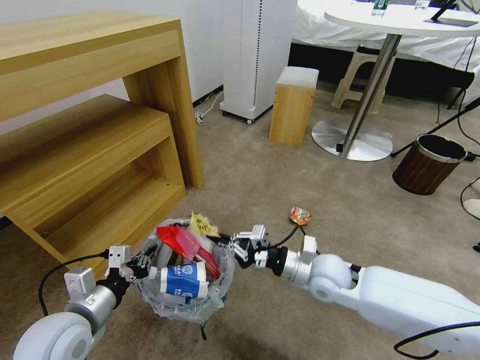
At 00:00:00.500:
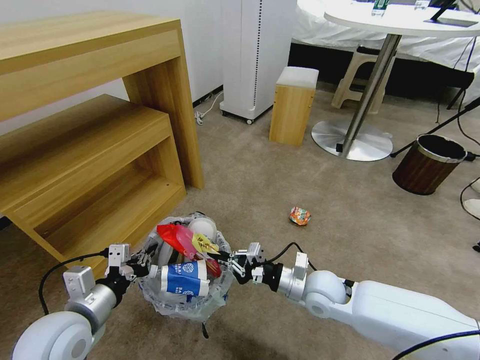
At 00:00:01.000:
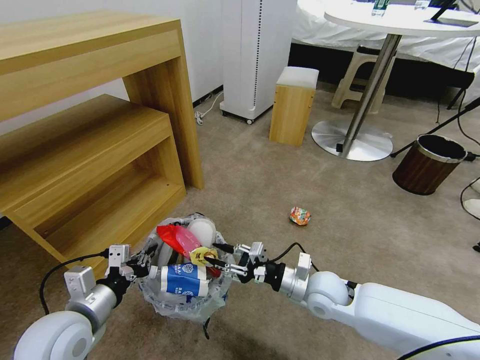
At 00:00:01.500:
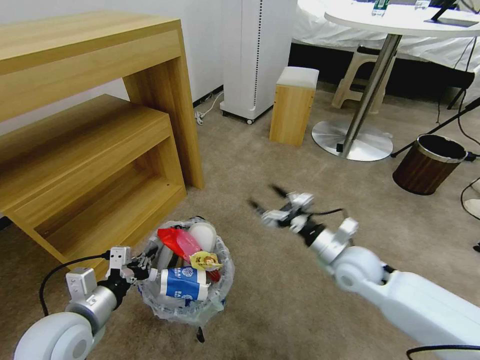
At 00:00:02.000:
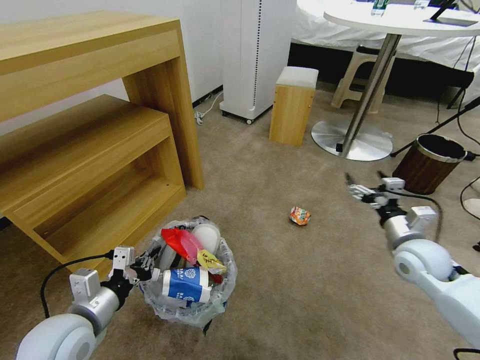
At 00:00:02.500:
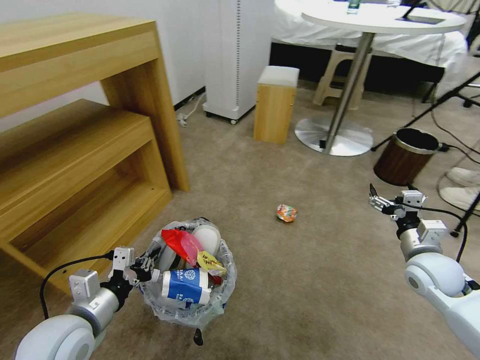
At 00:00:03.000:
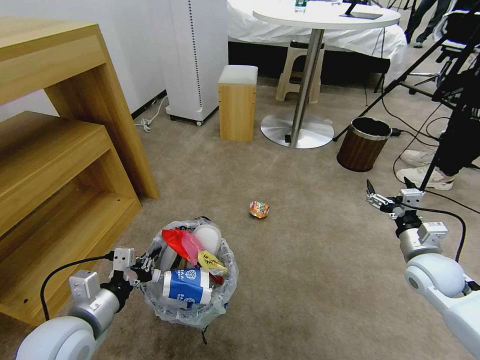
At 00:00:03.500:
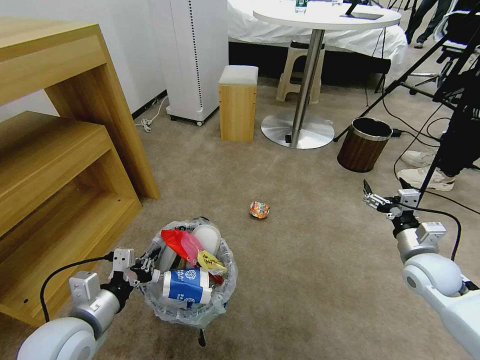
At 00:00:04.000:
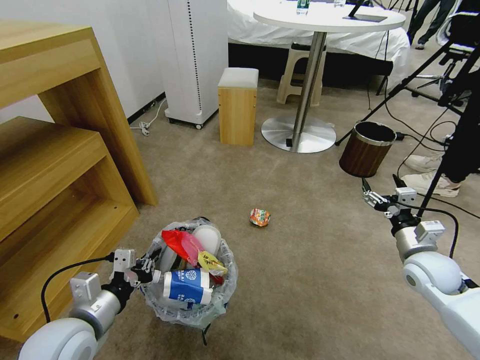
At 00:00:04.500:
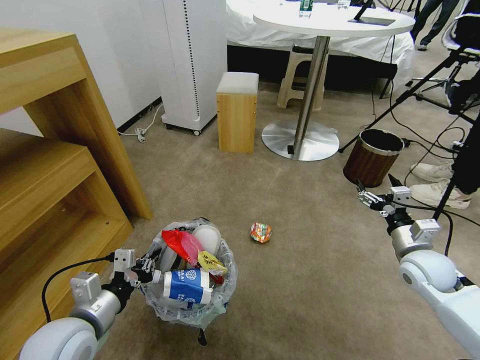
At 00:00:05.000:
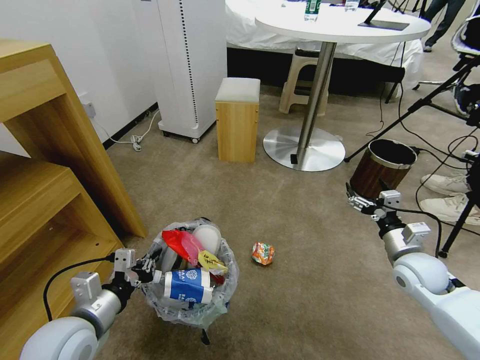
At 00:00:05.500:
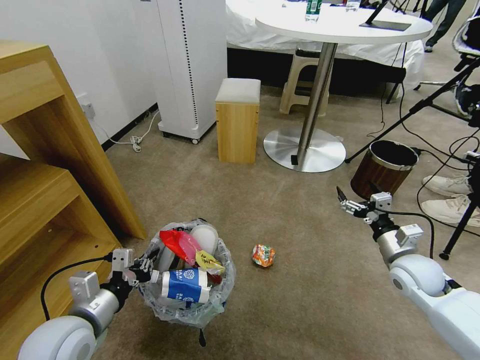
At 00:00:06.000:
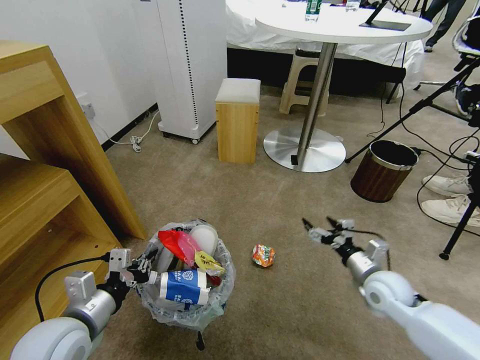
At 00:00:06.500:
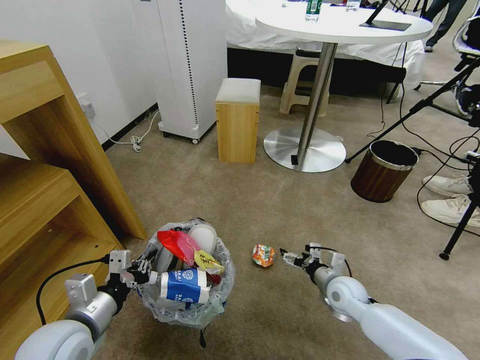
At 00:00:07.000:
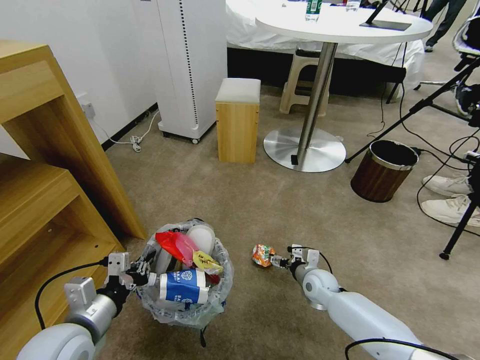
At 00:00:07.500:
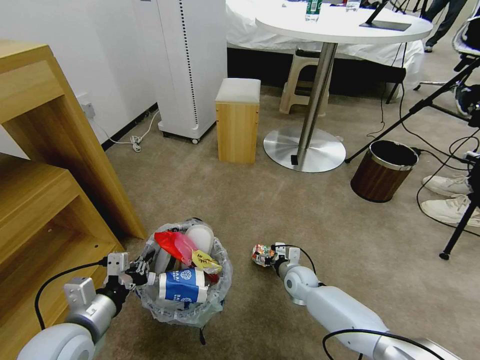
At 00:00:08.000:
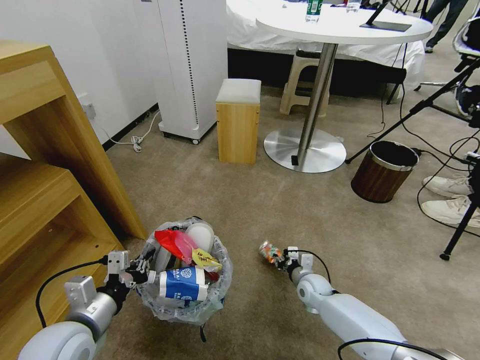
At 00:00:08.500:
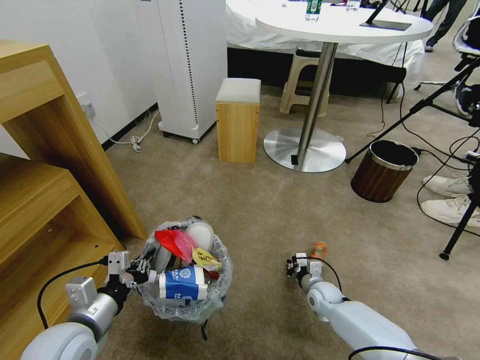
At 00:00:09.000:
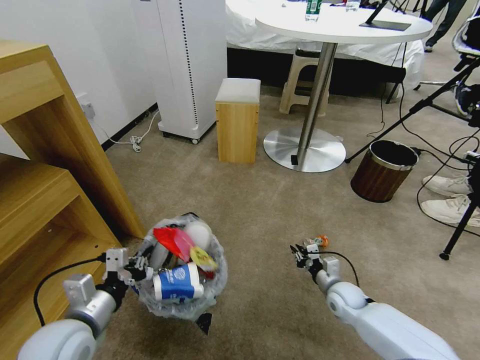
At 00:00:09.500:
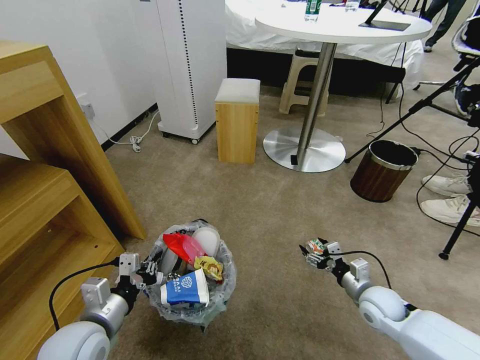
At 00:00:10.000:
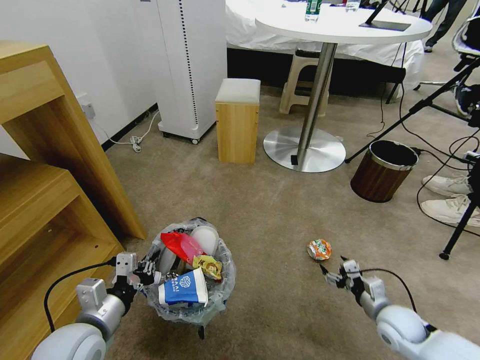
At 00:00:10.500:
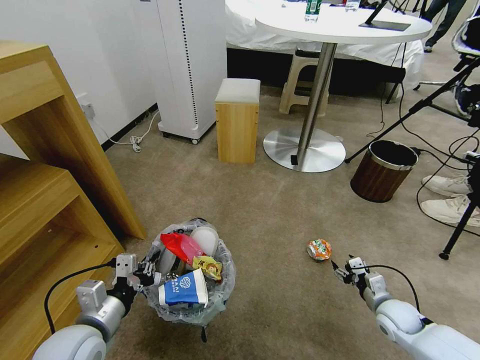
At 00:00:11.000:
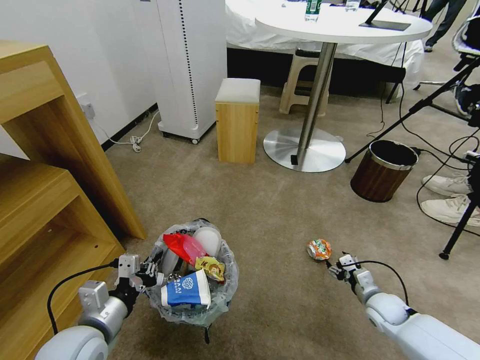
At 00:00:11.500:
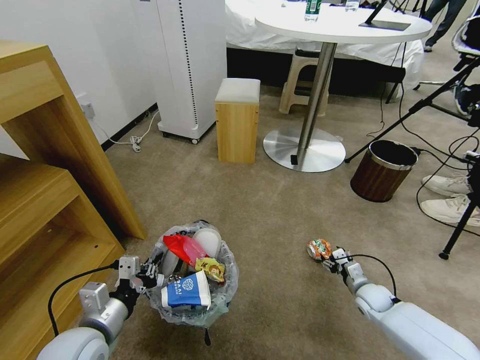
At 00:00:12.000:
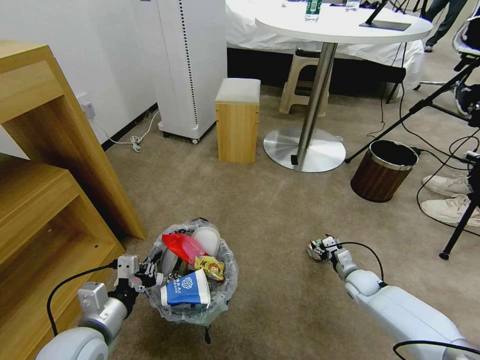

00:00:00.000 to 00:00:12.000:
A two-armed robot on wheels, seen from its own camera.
Task of the whole recording: Pick up the trash bin and place the garbage on the floor into it.
00:00:00.000 to 00:00:02.000: The right gripper is displaced to the right by about 20 cm, and opens up.
00:00:04.000 to 00:00:06.000: The right gripper heads to the left and downward, covering approximately 10 cm.
00:00:06.000 to 00:00:08.000: The right gripper goes some 20 cm downward, to the left and forward, and closes up.
00:00:08.000 to 00:00:10.000: The right gripper travels to the right, backward and upward by approximately 20 cm, and opens.
00:00:10.000 to 00:00:12.000: The right gripper is displaced forward and downward by approximately 15 cm.

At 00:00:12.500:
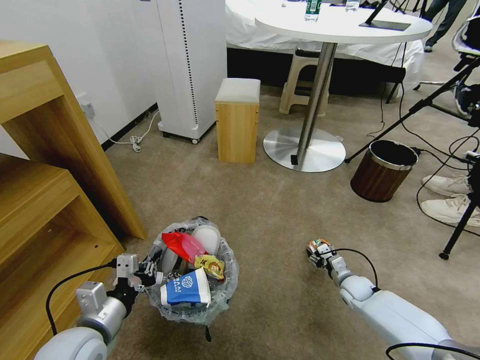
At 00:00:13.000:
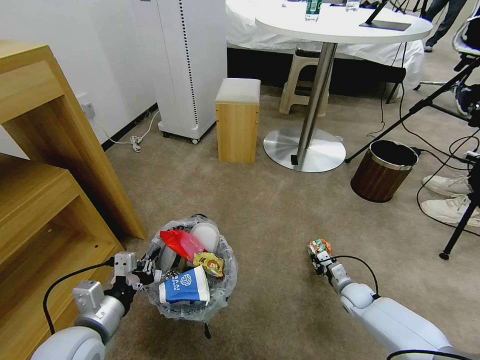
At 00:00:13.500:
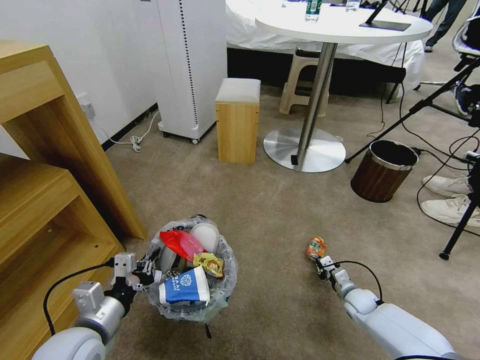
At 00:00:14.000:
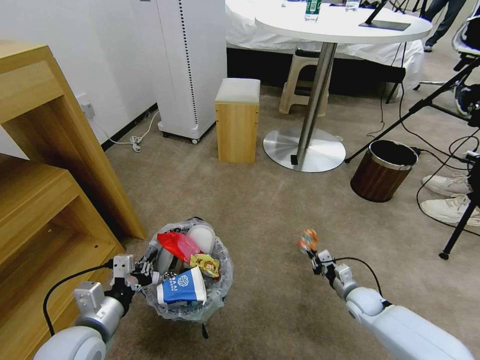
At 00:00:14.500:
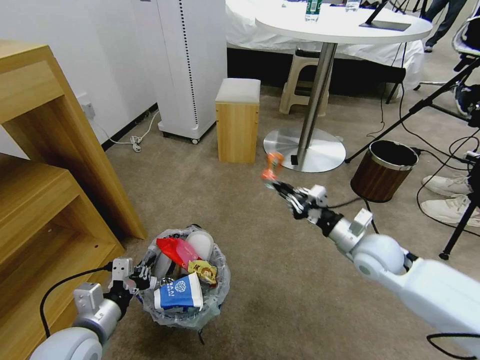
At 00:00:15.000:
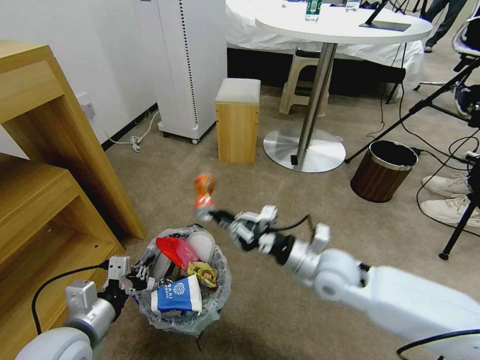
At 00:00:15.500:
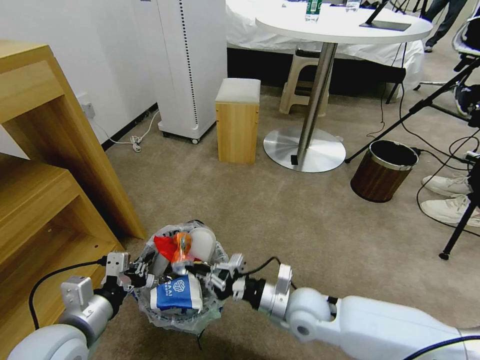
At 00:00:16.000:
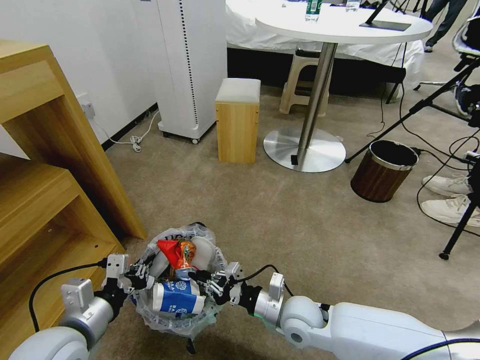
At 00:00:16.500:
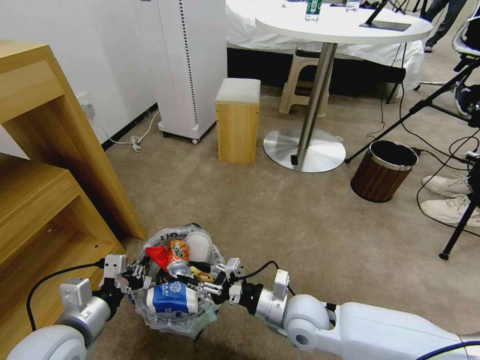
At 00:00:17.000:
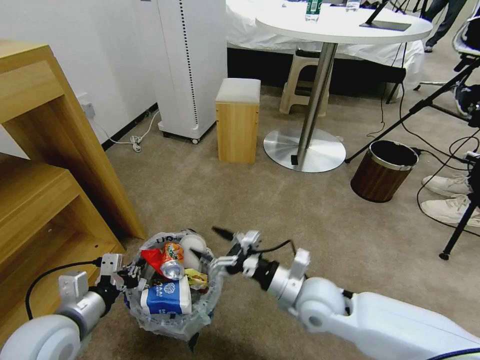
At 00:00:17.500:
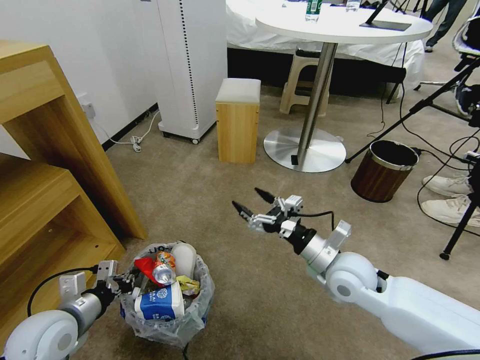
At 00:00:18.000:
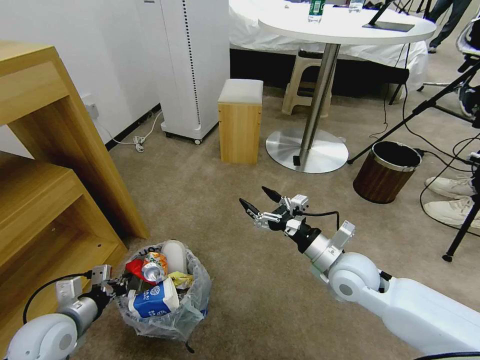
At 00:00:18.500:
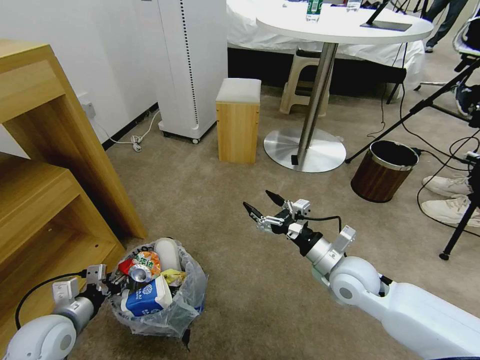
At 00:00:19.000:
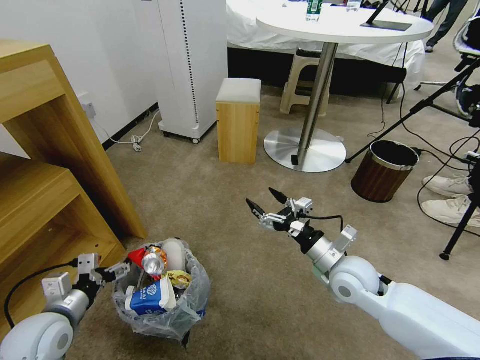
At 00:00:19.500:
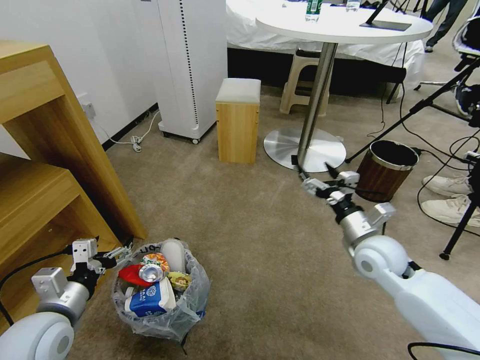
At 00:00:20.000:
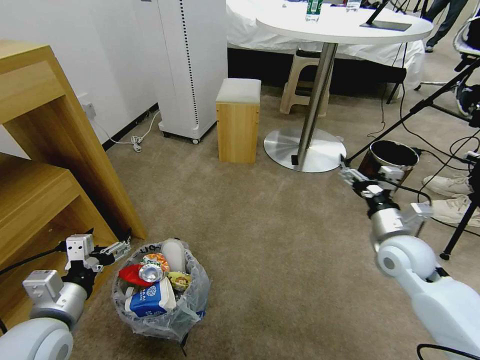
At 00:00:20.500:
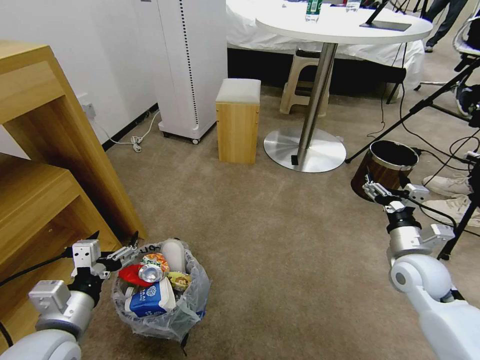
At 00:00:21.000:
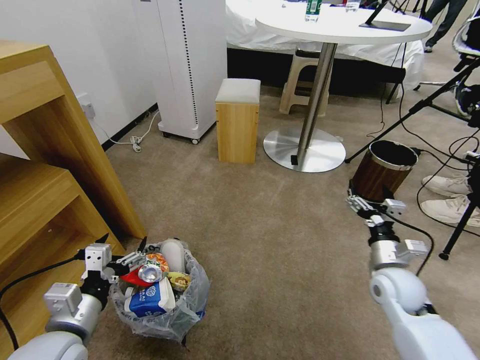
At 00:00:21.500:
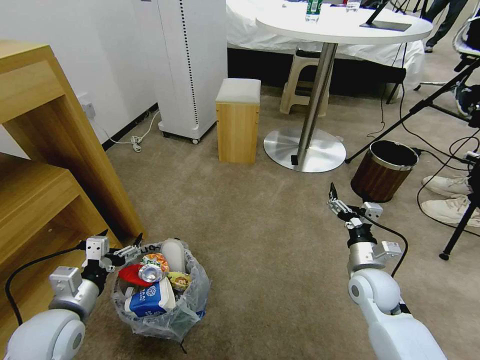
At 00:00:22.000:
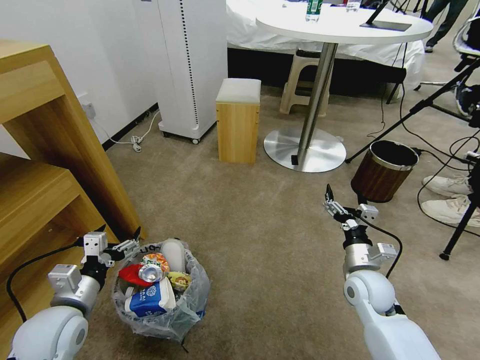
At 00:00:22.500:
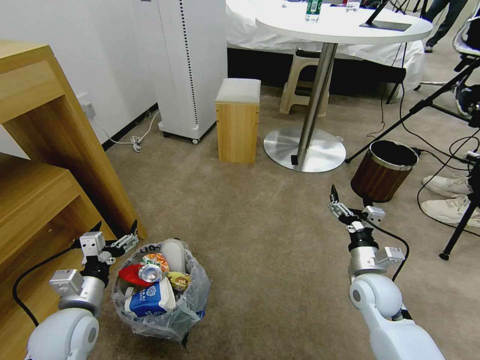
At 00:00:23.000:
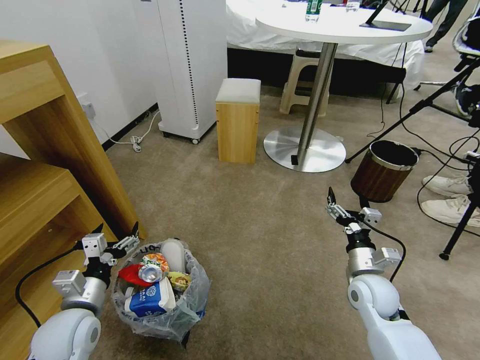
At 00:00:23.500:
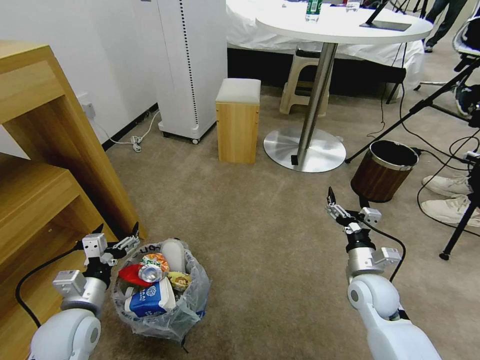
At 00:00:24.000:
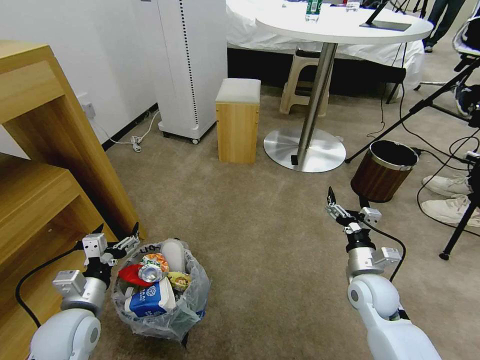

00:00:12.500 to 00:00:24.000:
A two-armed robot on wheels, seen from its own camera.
Task of the whole recording: Pick up the trash bin and place the garbage on the floor into it.
00:00:12.500 to 00:00:14.500: The right gripper heads upward, covering some 25 cm, and closes up.
00:00:14.500 to 00:00:16.500: The right gripper is displaced to the left, backward and downward by some 20 cm, and opens up.
00:00:16.500 to 00:00:18.500: The left gripper travels to the left and downward by approximately 10 cm, and opens its fingers. The right gripper is displaced to the right, forward and upward by approximately 15 cm, and opens up.
00:00:18.500 to 00:00:20.000: The left gripper heads upward and to the right, covering roughly 10 cm, and opens its fingers; the right gripper goes some 10 cm to the right.
00:00:20.000 to 00:00:22.000: The right gripper goes some 10 cm downward and to the left. The left gripper moves some 5 cm.
00:00:22.000 to 00:00:24.000: The grippers make only small movements.
